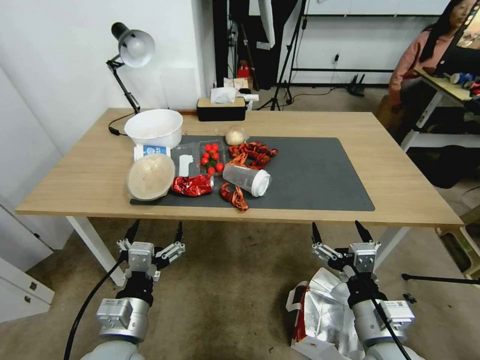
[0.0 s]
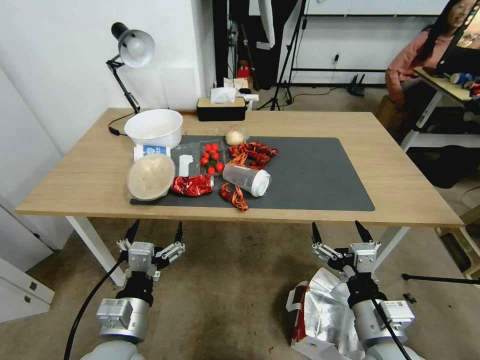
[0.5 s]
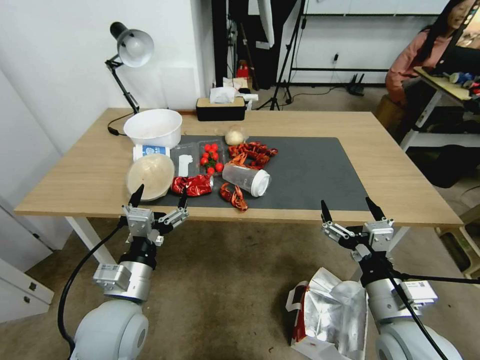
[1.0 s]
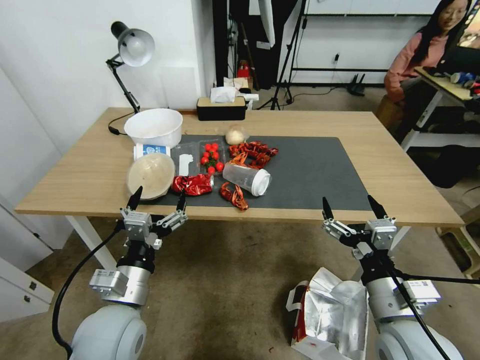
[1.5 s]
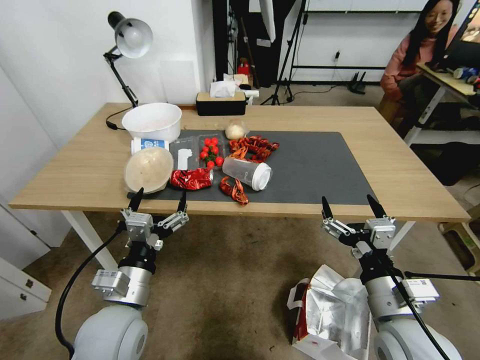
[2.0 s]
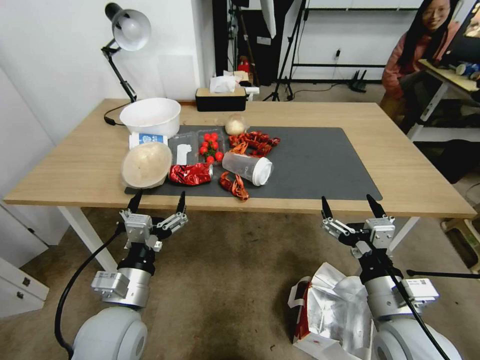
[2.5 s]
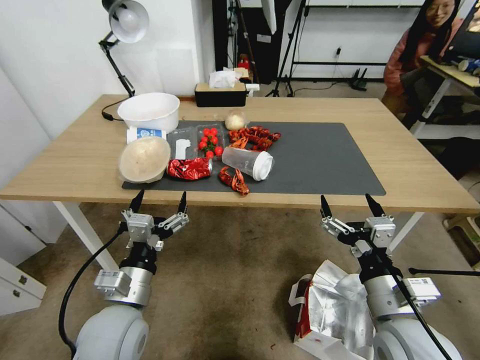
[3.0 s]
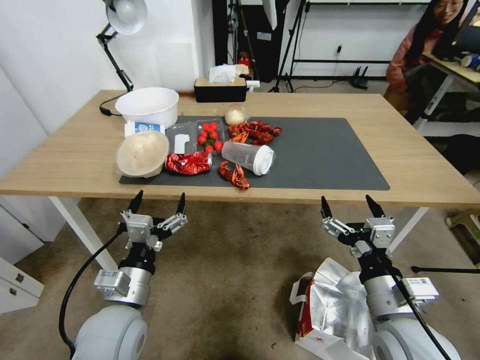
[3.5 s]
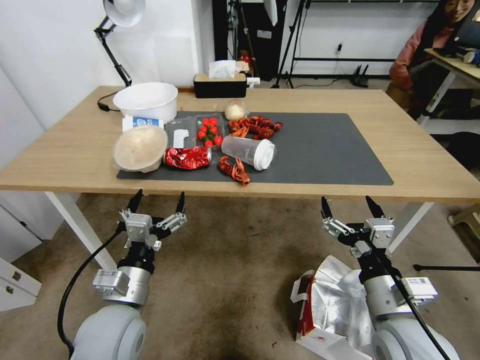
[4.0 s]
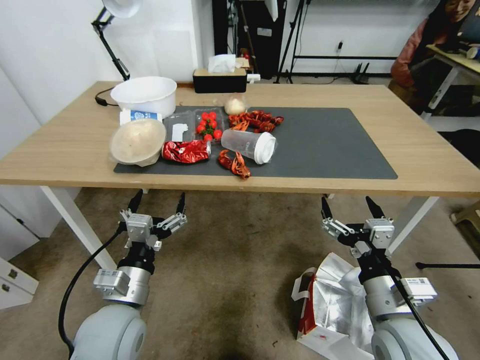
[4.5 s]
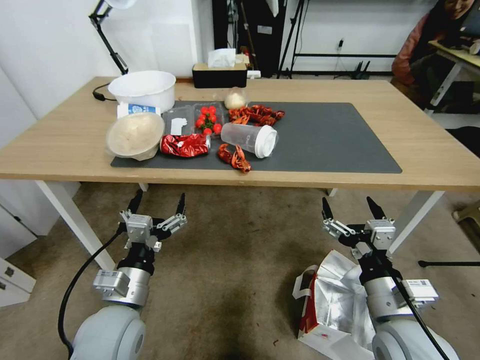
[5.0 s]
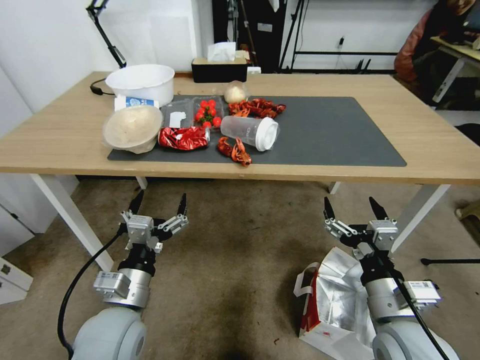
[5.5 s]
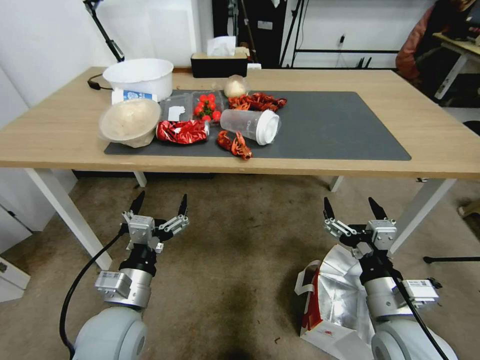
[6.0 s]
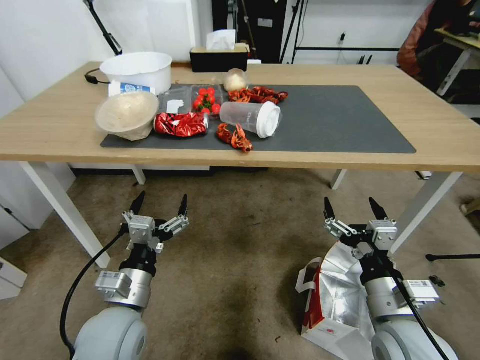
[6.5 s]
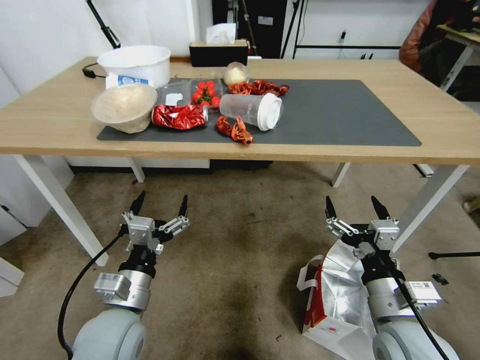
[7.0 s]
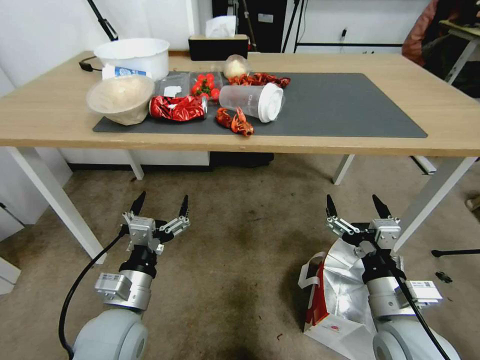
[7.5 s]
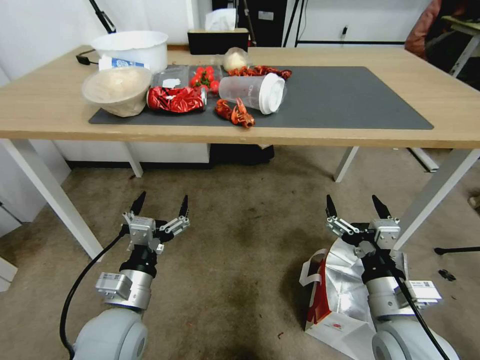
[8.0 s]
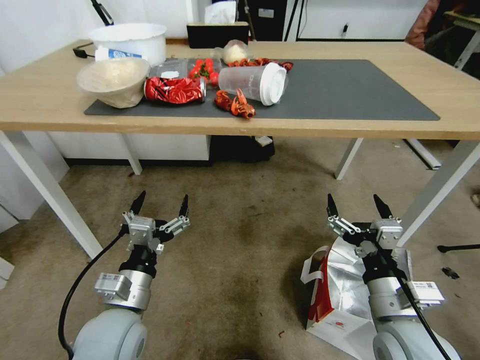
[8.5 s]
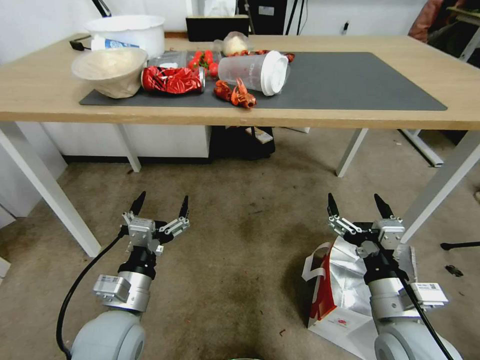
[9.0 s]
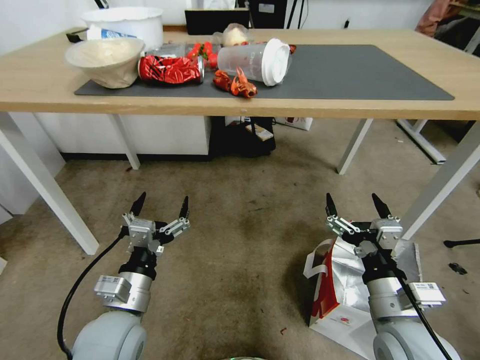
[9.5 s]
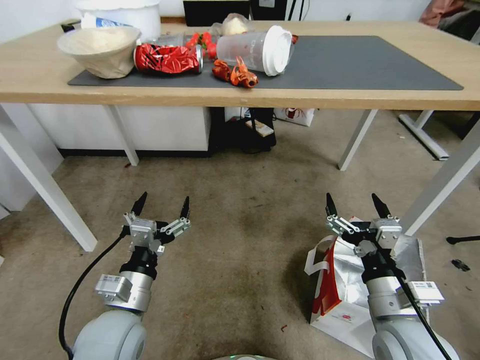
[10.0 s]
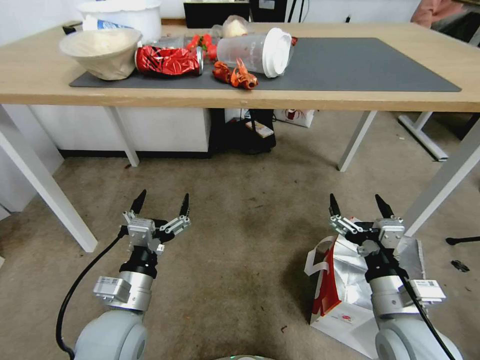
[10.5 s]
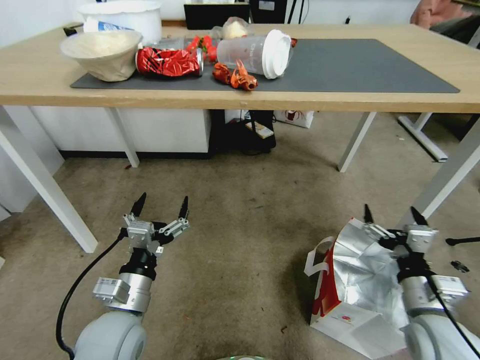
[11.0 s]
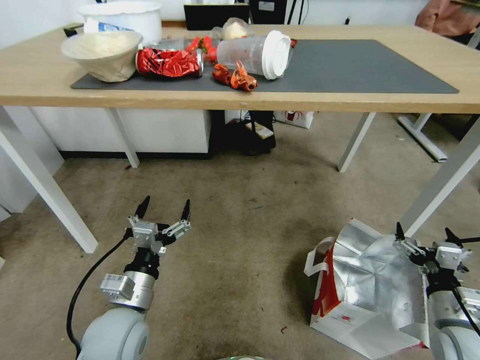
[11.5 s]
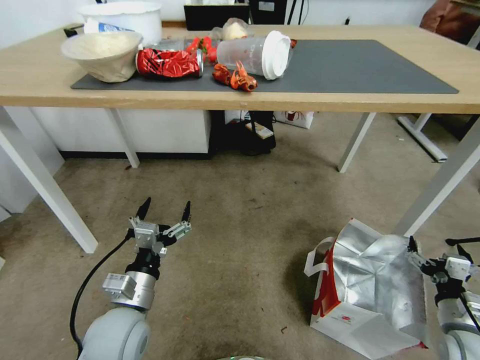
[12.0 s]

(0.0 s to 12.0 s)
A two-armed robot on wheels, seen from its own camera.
Task of the whole recording: Pick up the food delivery bag from the floor and place it on the table.
10.0 s - 12.0 s: The right gripper moves to the right and downward, some 25 cm.

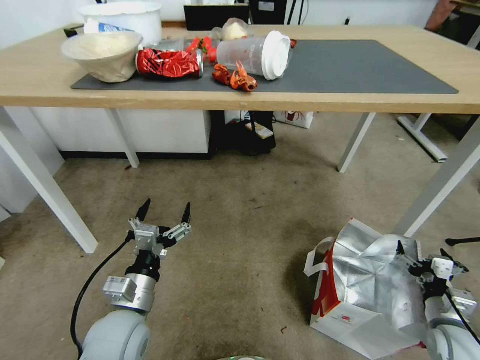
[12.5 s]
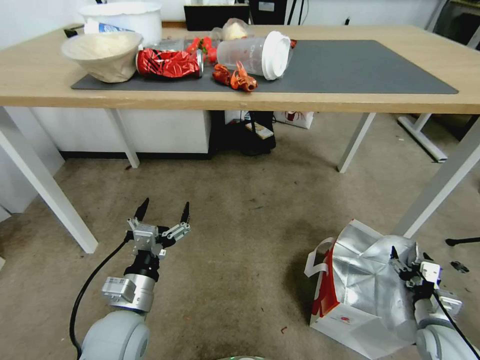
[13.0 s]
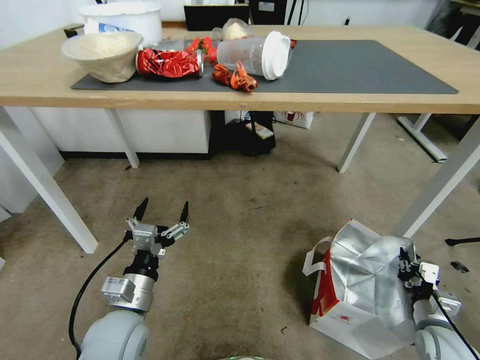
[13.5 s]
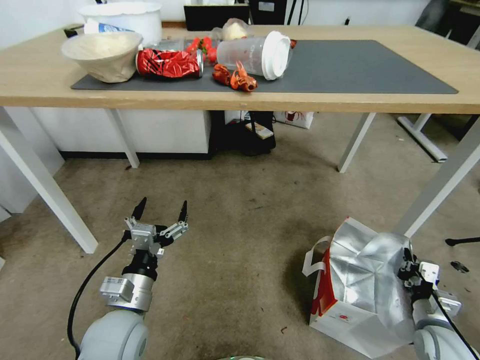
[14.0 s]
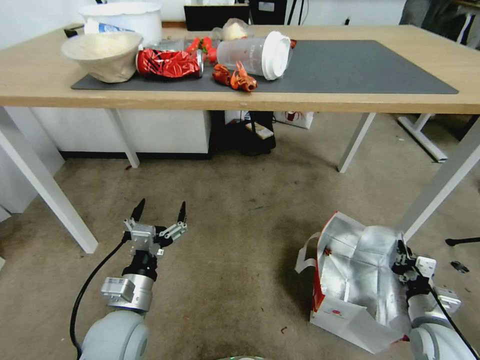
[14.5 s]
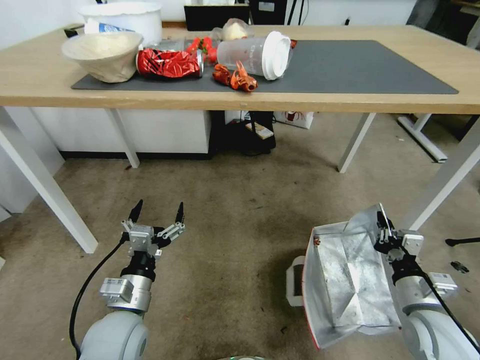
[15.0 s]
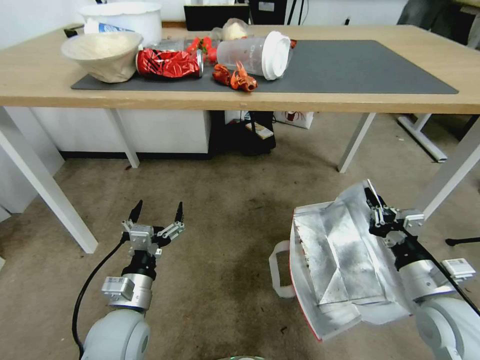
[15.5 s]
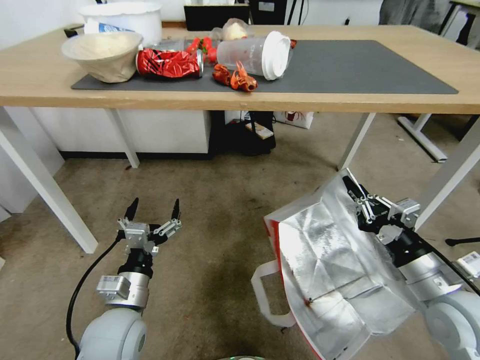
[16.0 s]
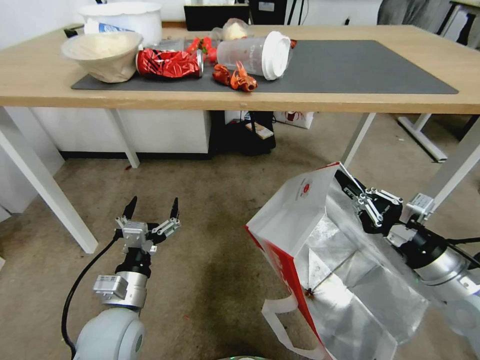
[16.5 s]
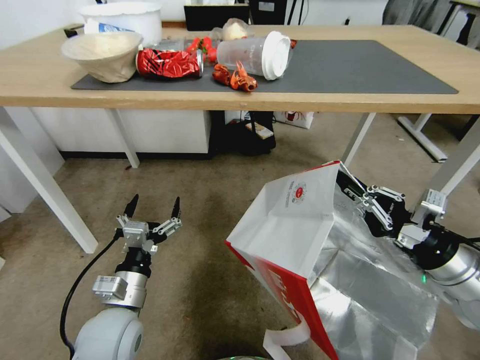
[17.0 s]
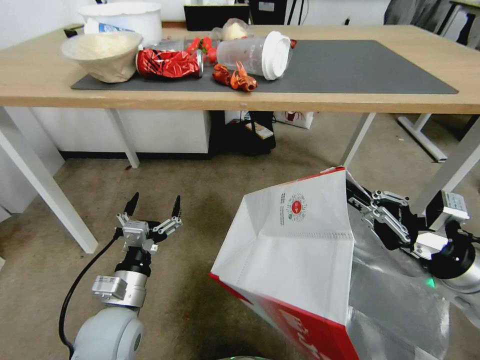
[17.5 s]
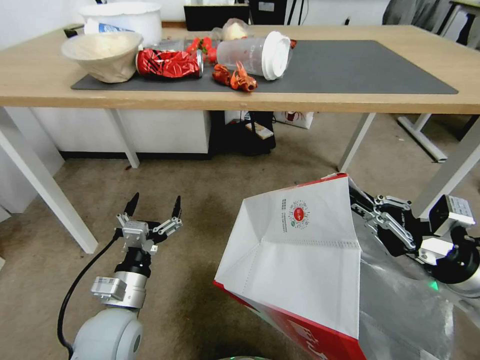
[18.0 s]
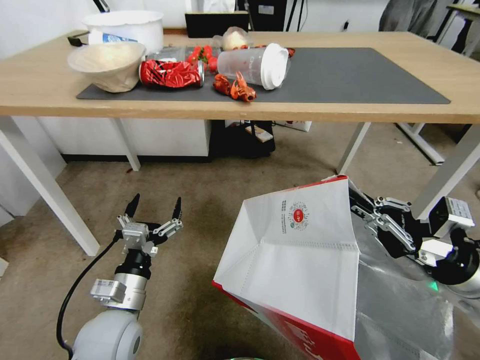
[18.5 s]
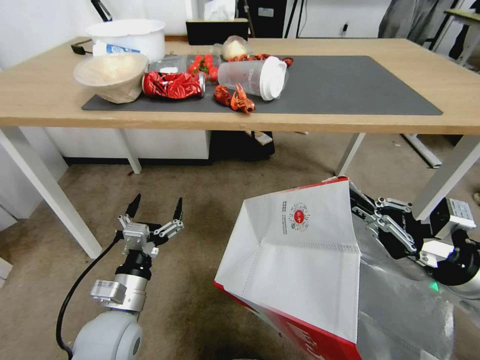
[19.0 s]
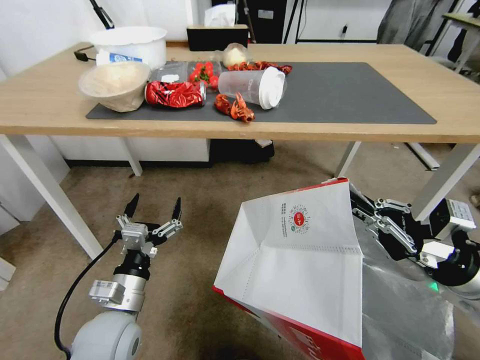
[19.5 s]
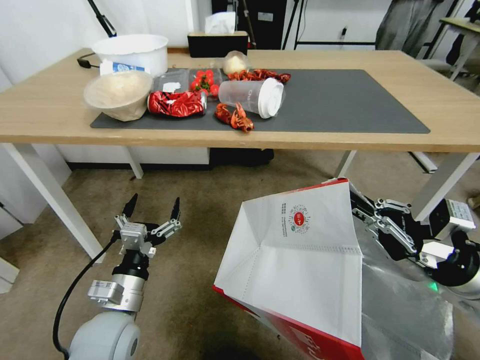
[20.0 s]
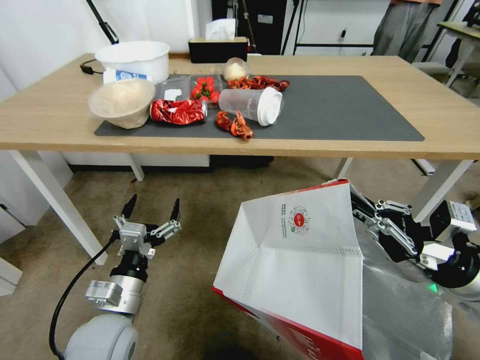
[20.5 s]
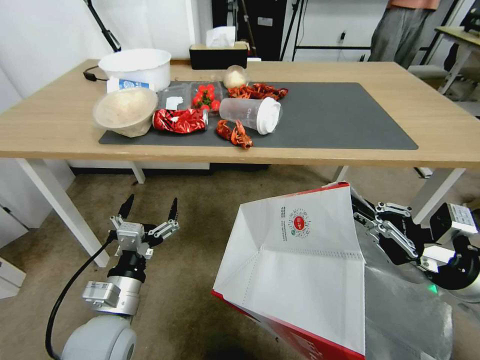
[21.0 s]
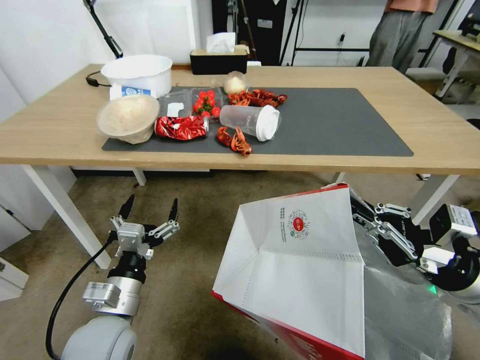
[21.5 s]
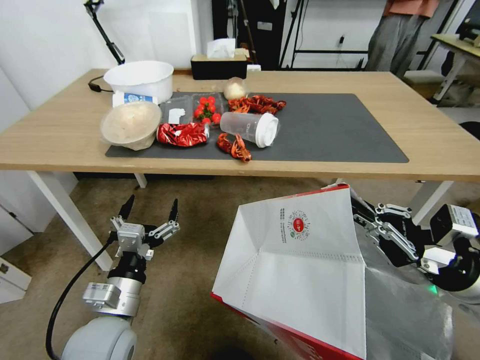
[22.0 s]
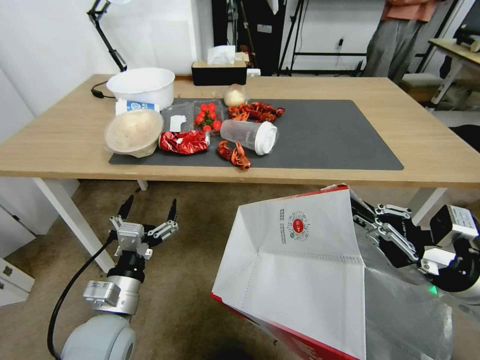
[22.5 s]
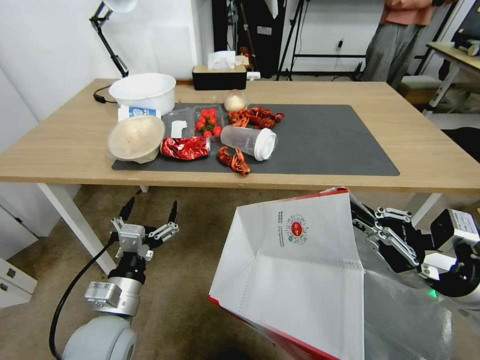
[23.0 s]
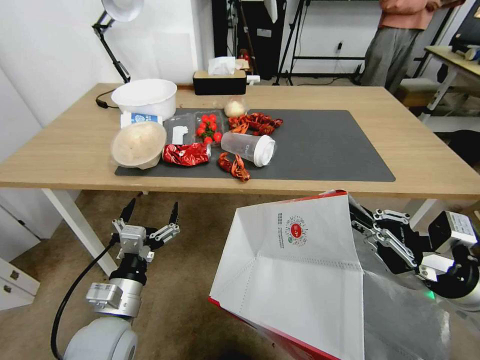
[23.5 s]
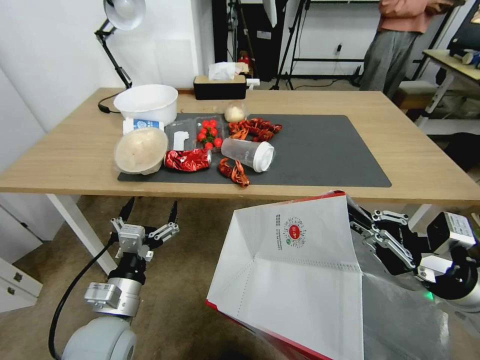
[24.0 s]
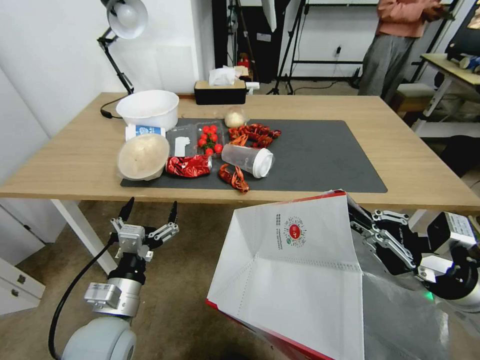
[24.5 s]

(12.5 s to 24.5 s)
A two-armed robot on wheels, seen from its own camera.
Task of the whole recording: Pick up the food delivery bag from the floor and place it on the table.
12.5 s - 14.5 s: The right gripper closes its fingers.
14.5 s - 16.5 s: The right gripper heads upward, covering about 20 cm.

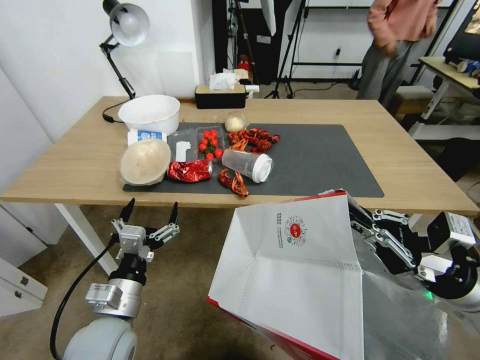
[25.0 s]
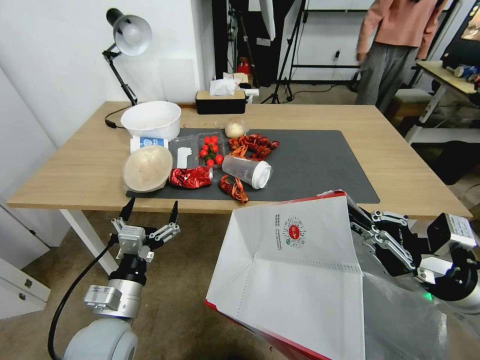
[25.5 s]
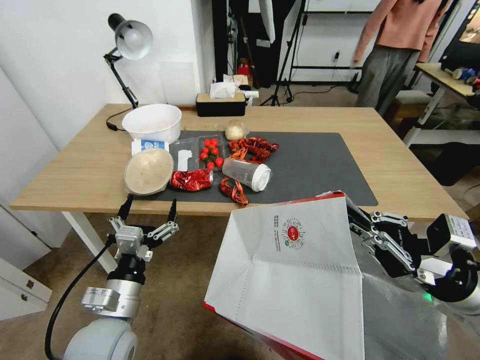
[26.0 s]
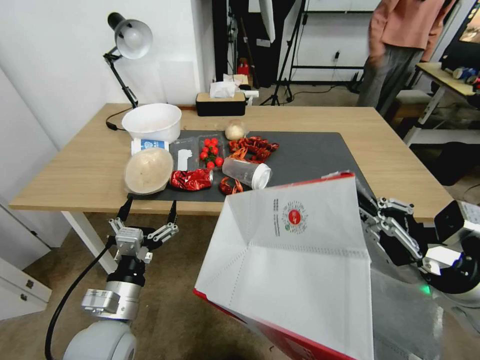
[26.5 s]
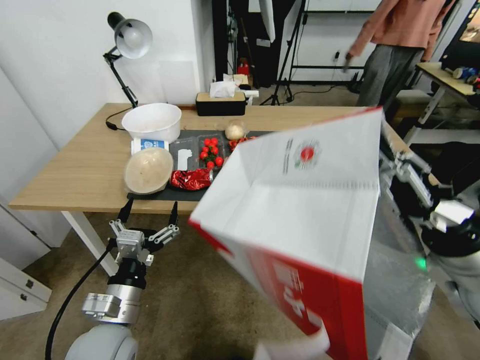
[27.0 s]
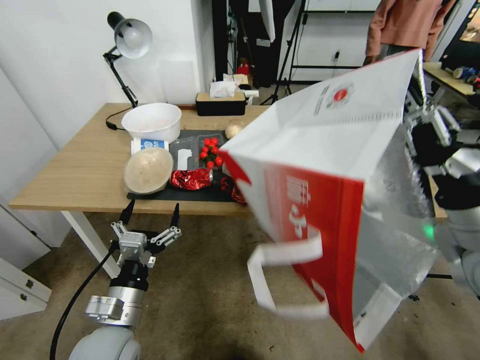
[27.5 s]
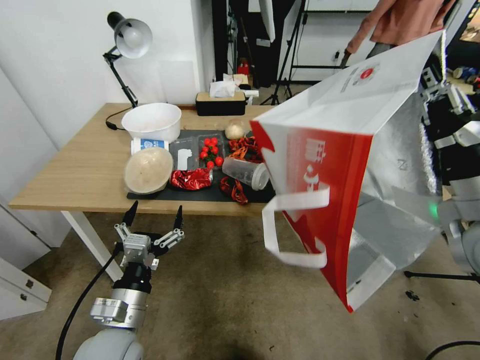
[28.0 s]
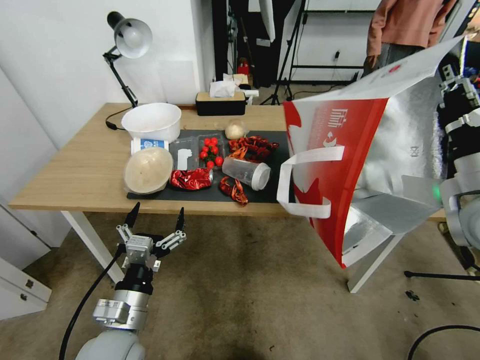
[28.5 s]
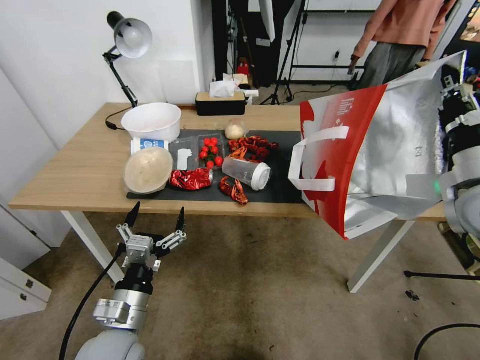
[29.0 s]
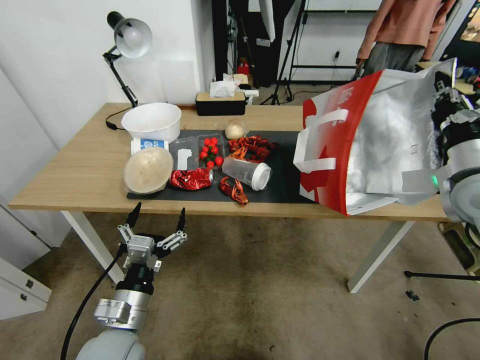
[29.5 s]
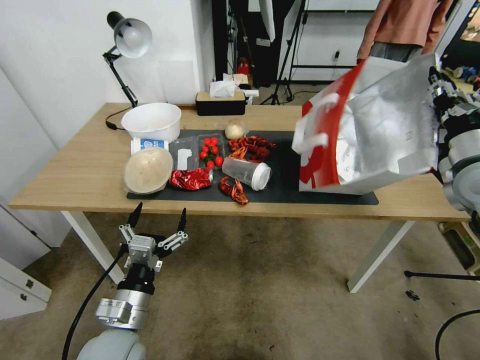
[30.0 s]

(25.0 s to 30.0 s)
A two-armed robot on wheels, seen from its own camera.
Task of the whole recording: Pick up the food delivery bag from the floor and place it on the table.
25.0 s - 27.5 s: The right gripper heads upward, covering about 10 cm.
27.5 s - 30.0 s: The right gripper shifts approximately 20 cm forward and to the right, and opens its fingers.
